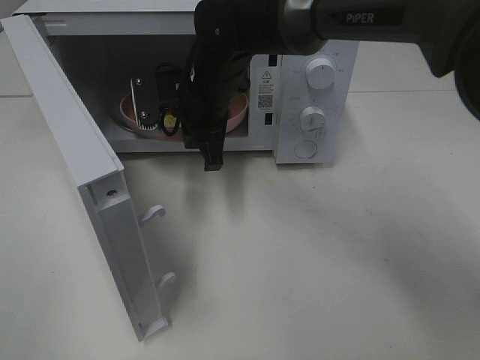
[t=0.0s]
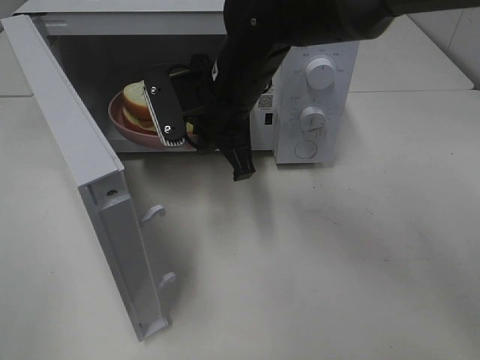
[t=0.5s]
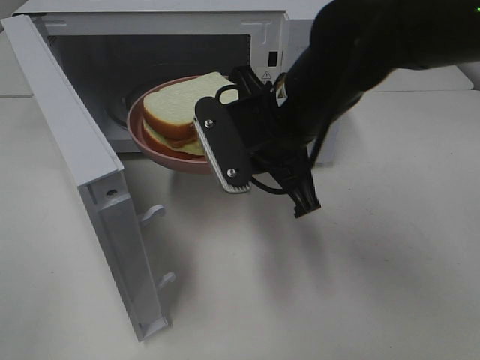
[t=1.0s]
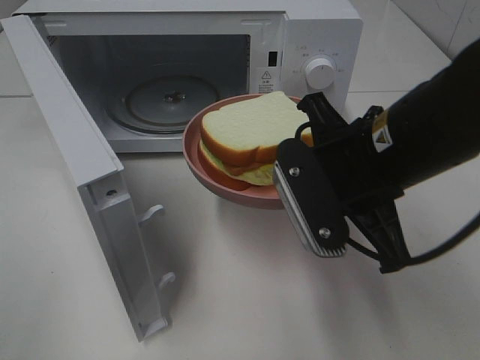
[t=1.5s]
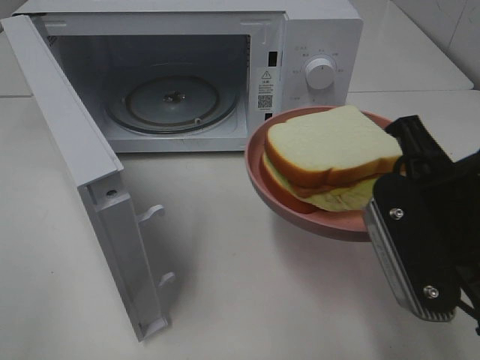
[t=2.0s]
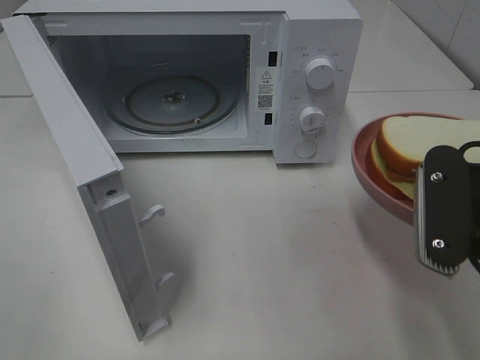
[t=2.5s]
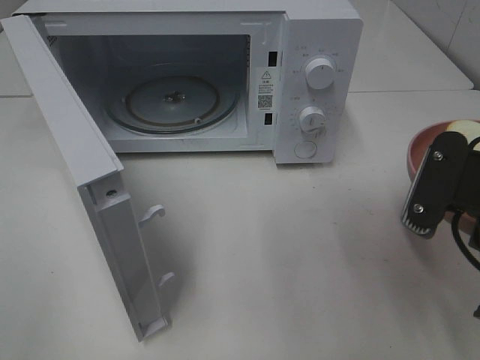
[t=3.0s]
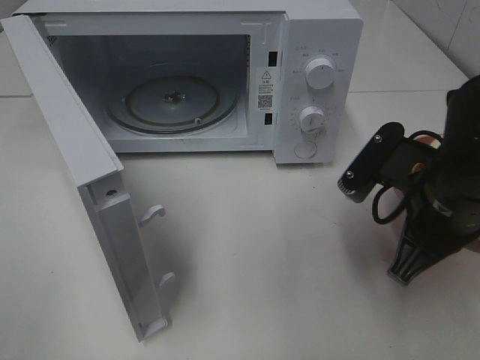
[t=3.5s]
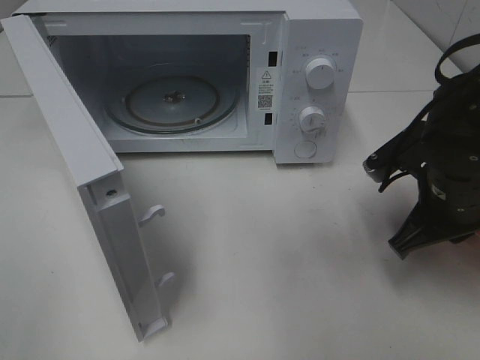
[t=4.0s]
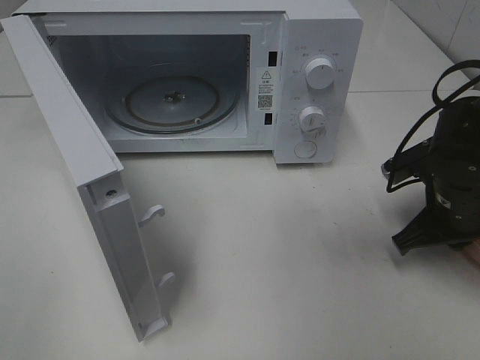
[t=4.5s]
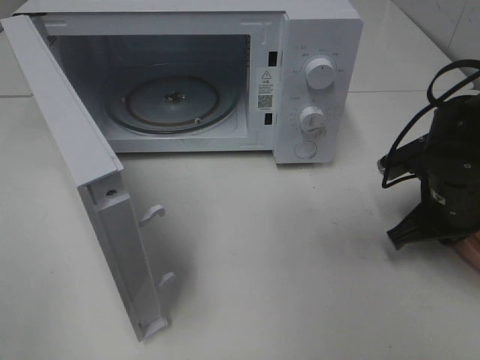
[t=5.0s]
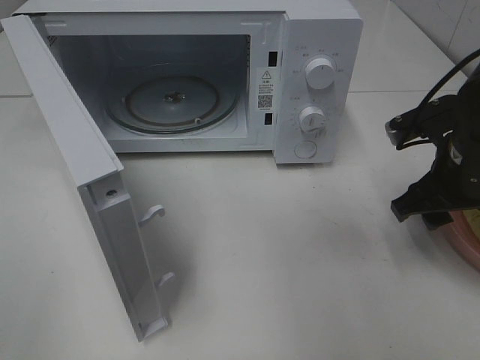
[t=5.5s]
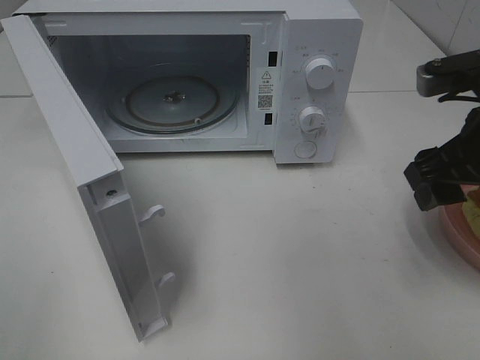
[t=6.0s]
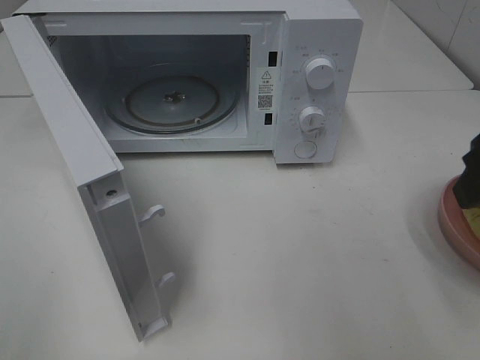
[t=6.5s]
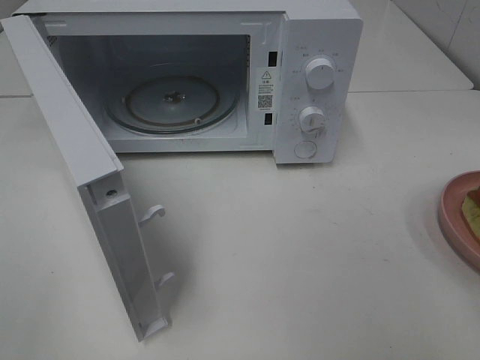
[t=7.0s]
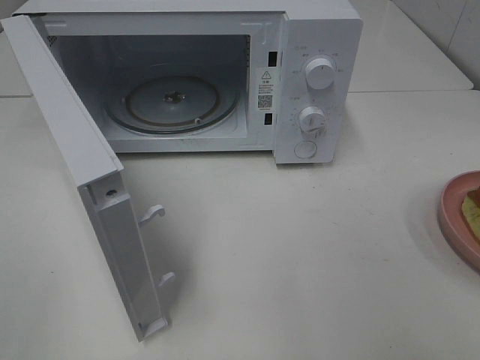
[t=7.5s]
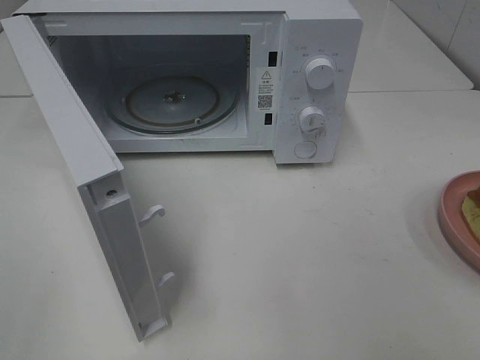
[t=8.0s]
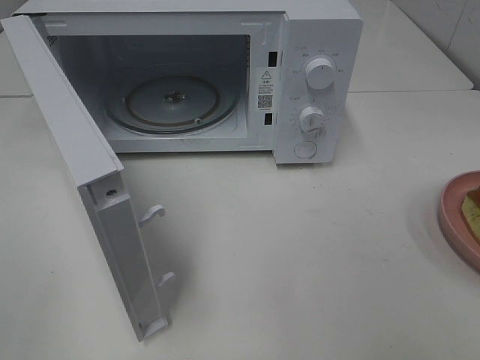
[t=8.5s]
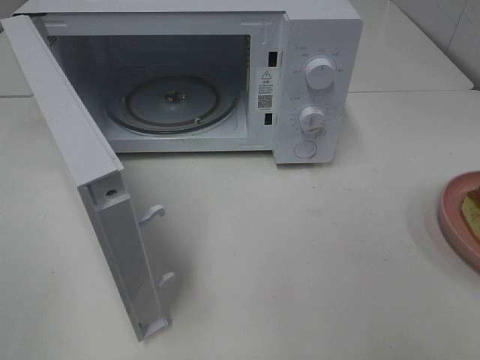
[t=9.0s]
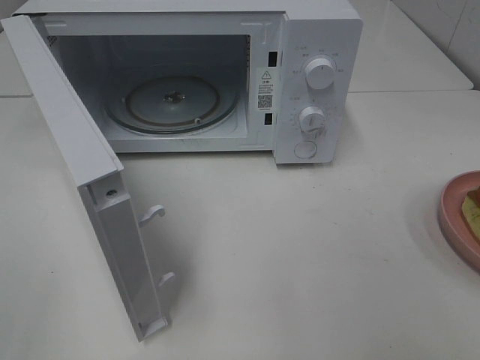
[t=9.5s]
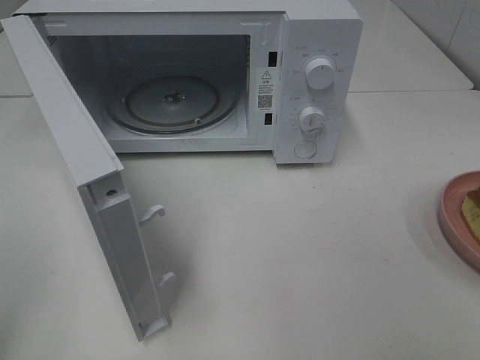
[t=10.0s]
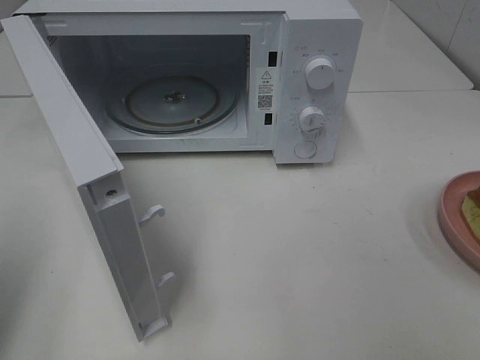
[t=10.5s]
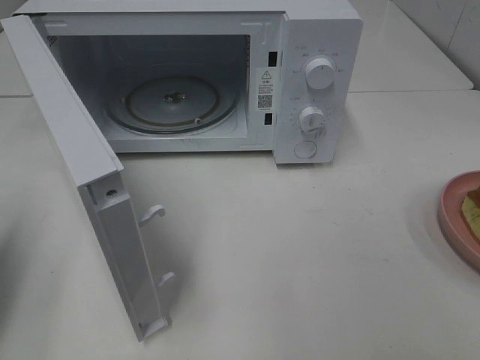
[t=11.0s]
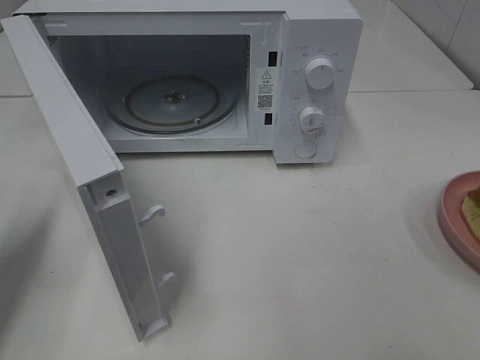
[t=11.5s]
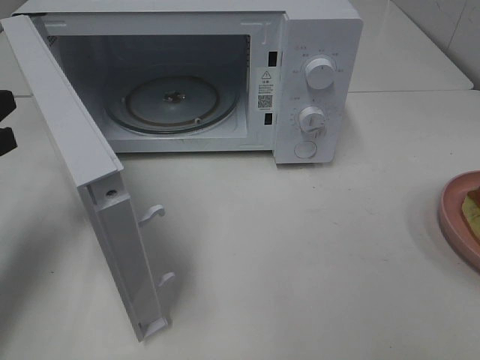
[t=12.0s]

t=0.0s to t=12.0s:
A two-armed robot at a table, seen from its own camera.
Task of the whole recording: Heat Sandwich.
Step, t=0.0s to t=5.5s: Right hand: place the plate on the table.
t=0.0s to t=2.0s: The right gripper shifts about 30 cm backward and to the right.
t=2.0s to t=4.0s: The right gripper heads forward and downward, covering roughly 15 cm.
t=4.0s to t=6.0s: The right gripper is displaced upward by about 10 cm, and opens.
t=6.0s to t=8.0s: The right gripper heads backward, covering some 25 cm.
t=10.0s to t=12.0s: The left gripper goes roughly 25 cm forward and downward, and closes.

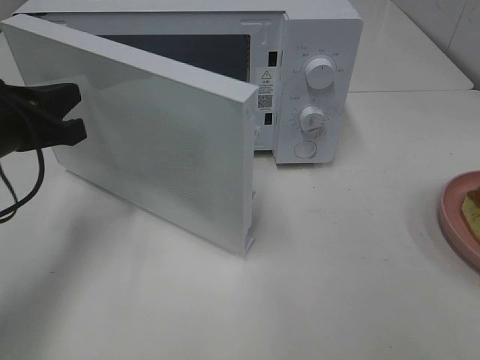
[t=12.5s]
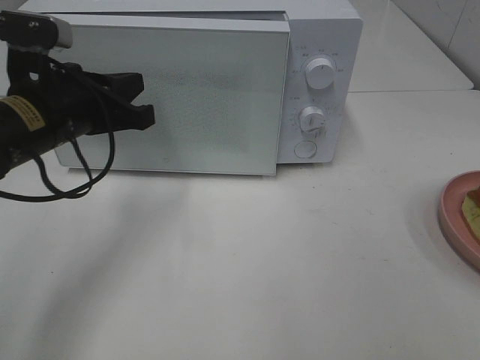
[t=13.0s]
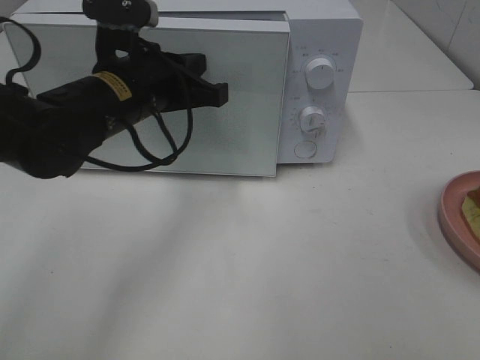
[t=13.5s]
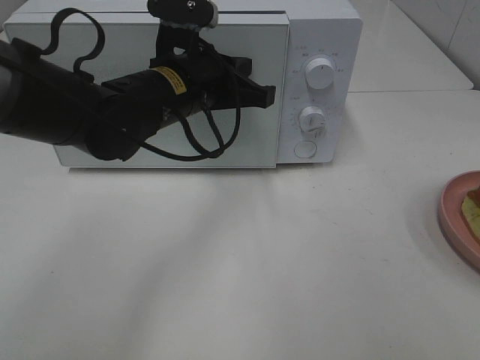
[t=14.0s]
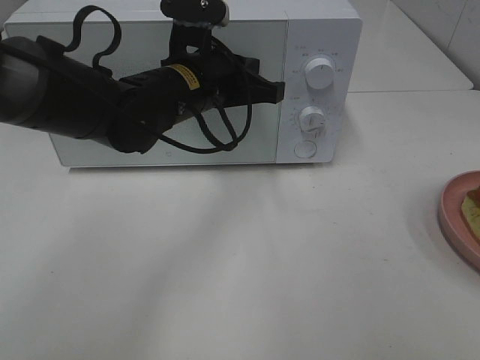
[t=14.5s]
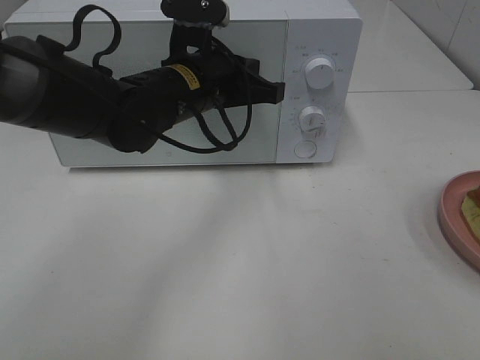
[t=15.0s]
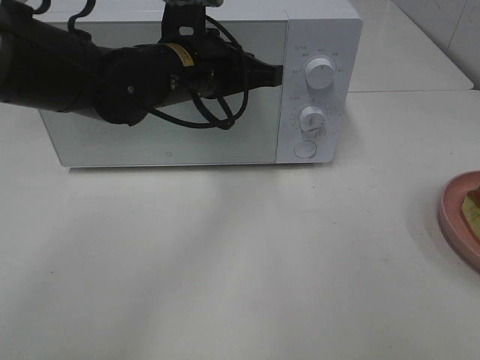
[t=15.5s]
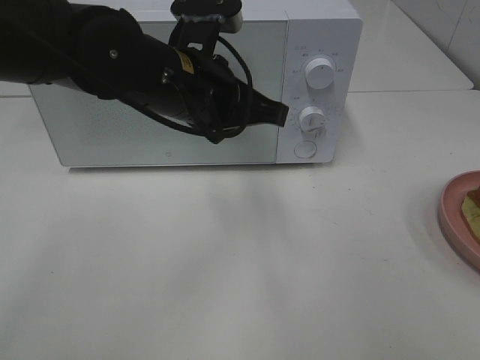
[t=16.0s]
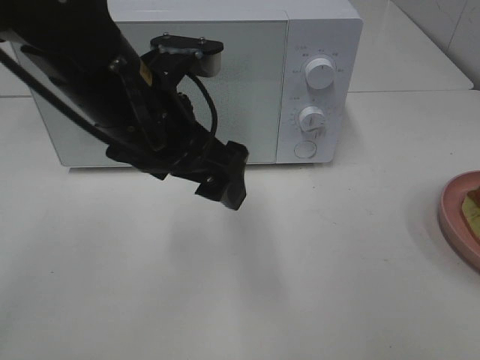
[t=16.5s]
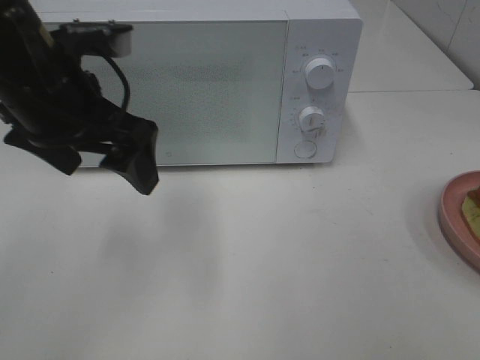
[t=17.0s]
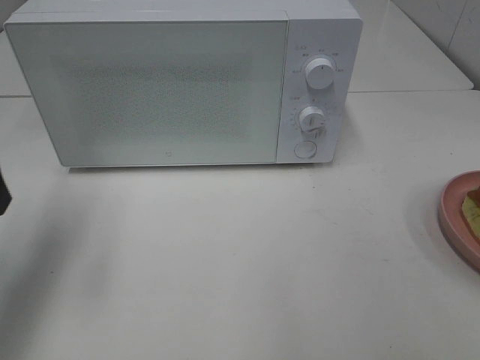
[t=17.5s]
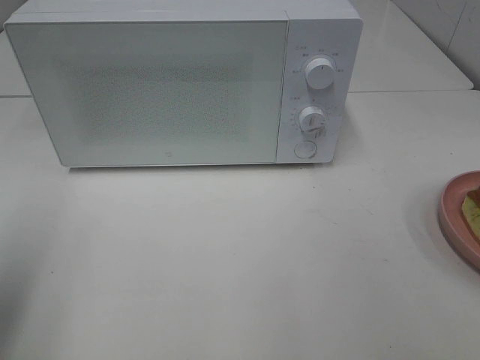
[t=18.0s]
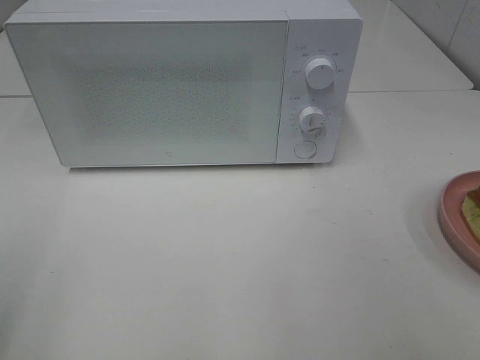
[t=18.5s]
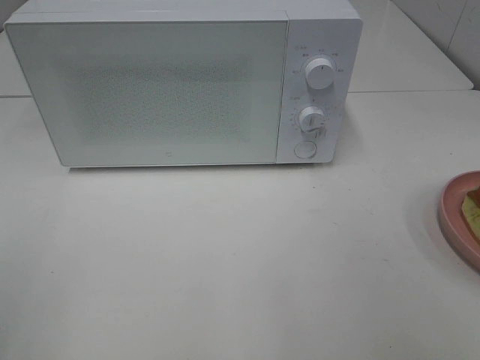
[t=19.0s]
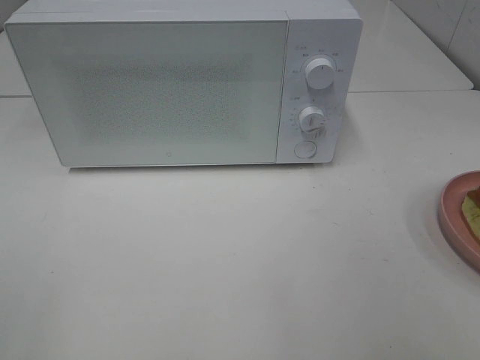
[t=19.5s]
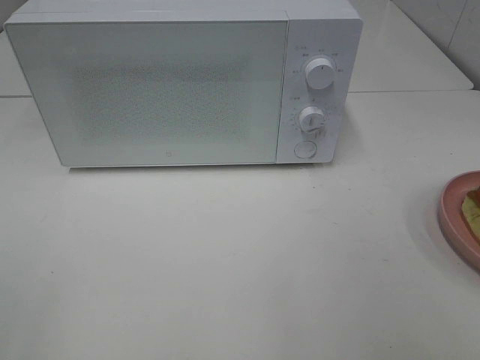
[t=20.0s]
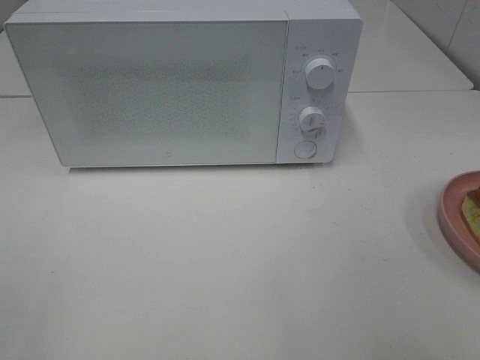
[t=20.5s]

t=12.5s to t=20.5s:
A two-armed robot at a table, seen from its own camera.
Task of the whole recording: Heat Sandwich.
Step, t=12.5s to t=15.5s: Left hand: close the microwave door.
t=12.5s to t=14.5s: The left gripper shifts approximately 20 cm to the right and forward.
t=14.5s to t=16.5s: The left gripper travels backward and upward by about 10 cm, and opens its fingers.
t=16.5s to t=18.5s: The left gripper heads to the left and backward, covering some 30 cm.
